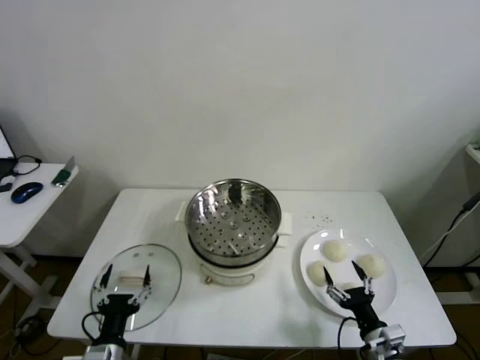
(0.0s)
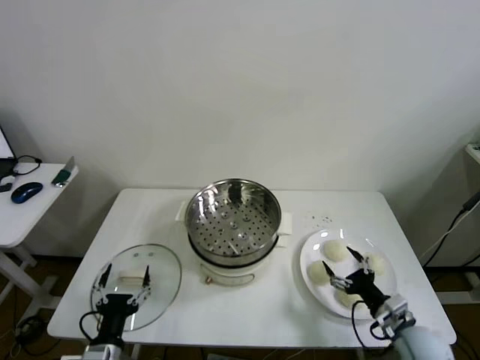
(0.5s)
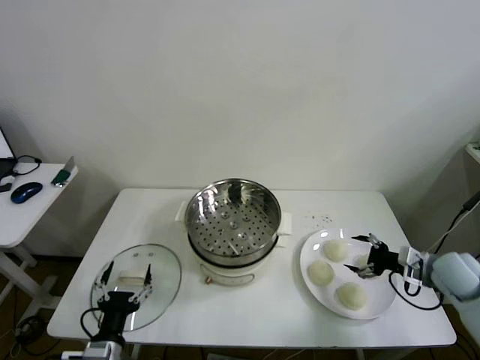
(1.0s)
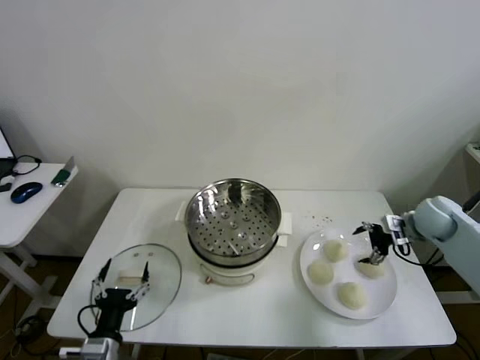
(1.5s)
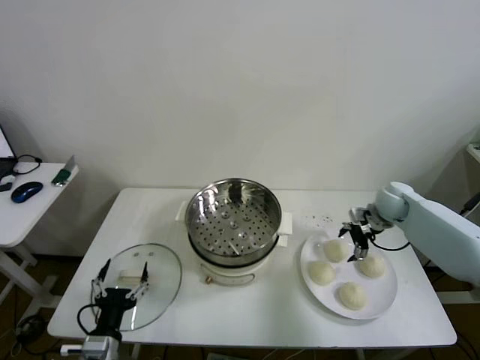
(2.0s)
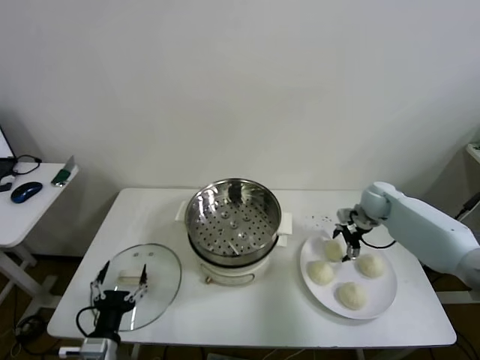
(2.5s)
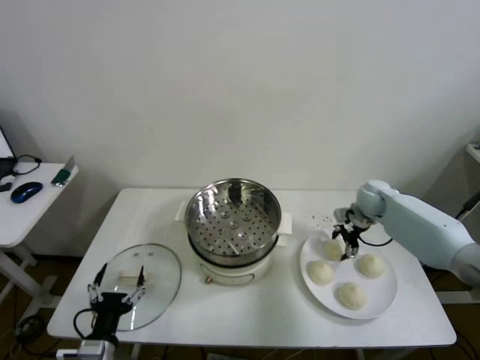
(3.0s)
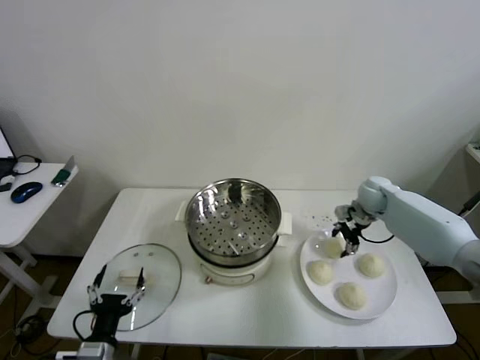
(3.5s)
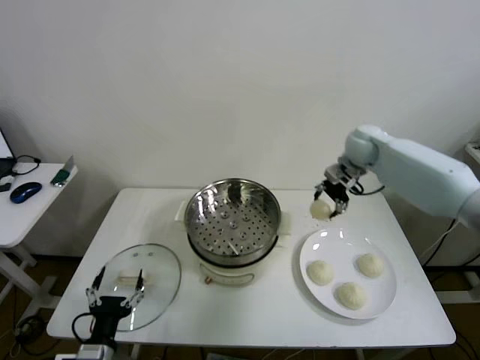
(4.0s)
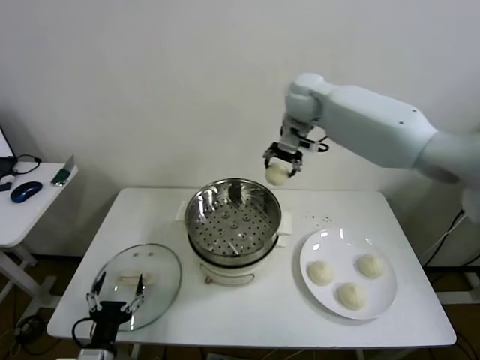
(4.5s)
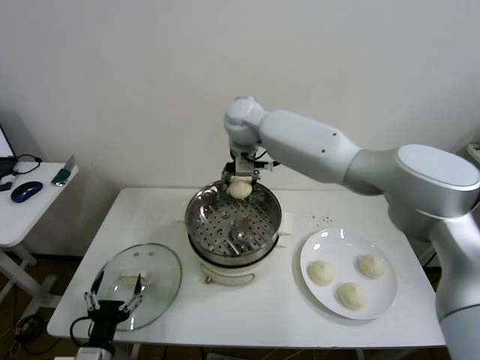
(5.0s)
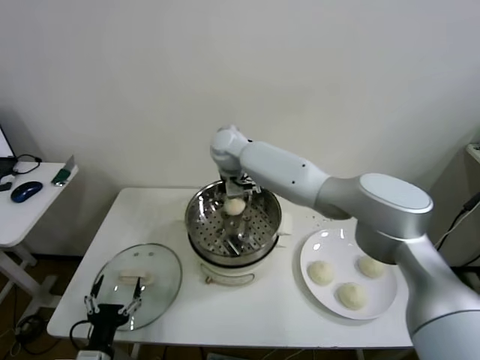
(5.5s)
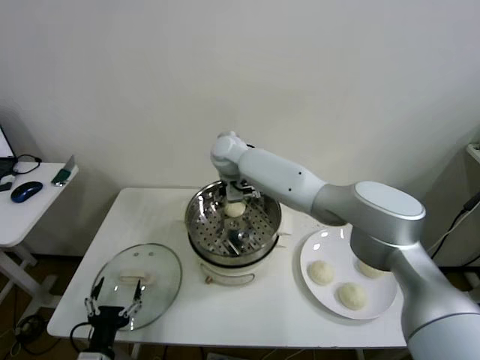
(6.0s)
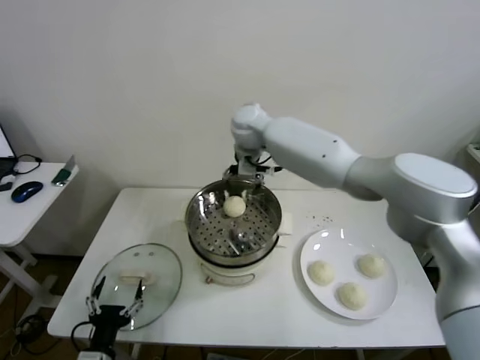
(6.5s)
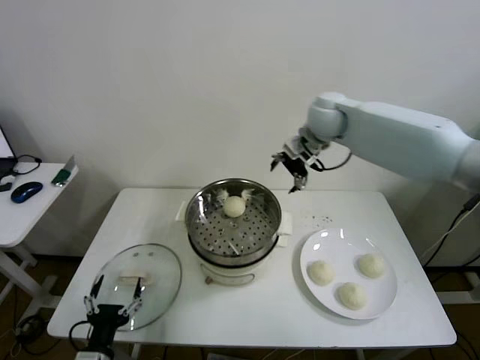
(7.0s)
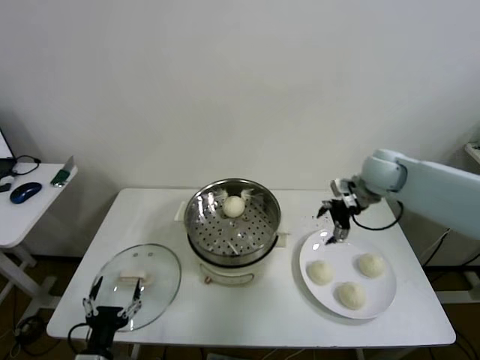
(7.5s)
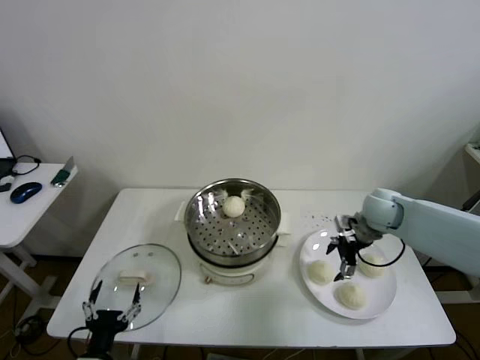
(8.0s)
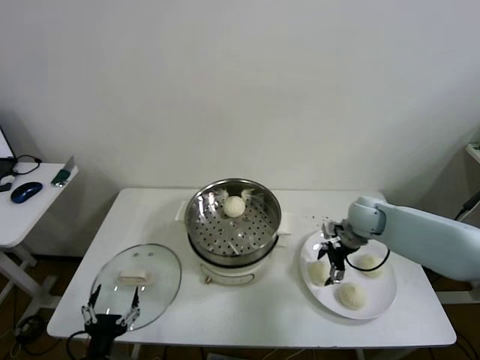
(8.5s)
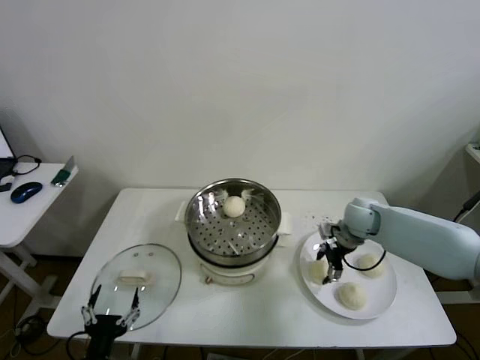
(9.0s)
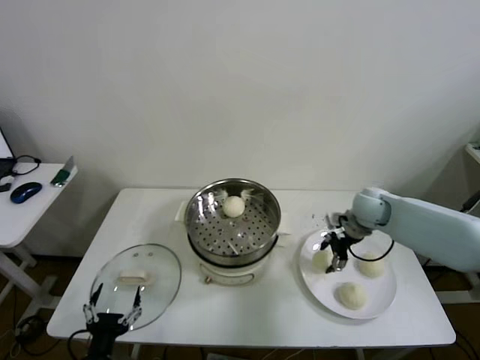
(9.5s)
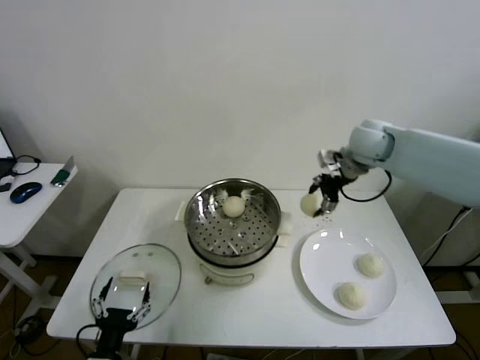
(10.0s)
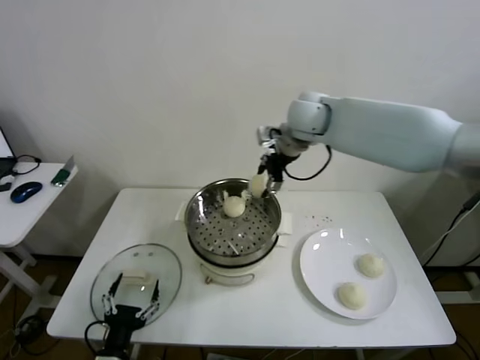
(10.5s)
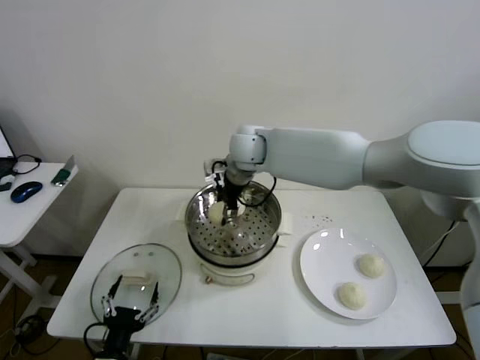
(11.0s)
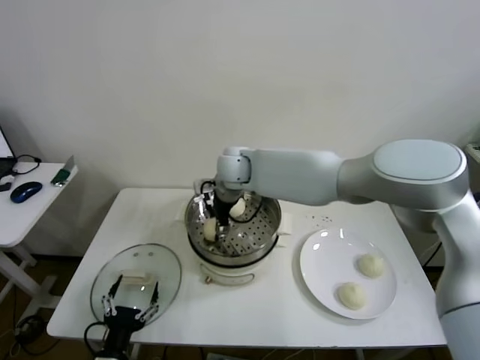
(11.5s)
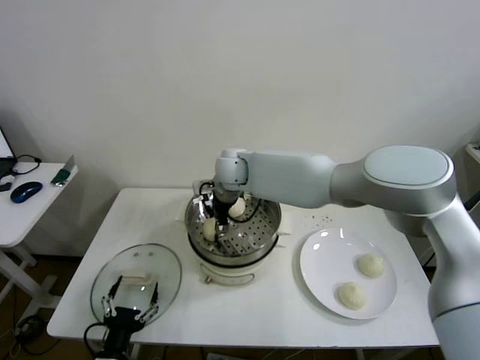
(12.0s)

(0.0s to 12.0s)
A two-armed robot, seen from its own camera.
Step, 0.0s - 3.0s: Grasp the baozi in the plate with right gripper.
Step, 3.5s - 6.0s: Place the baozi on the steamer with right gripper.
Step, 6.5s - 9.0s: Grasp the baozi in the plate with right gripper.
2.0s - 4.0s: The right gripper goes some 20 cm upward, to the left and forward, and closes.
4.0s - 6.0s: The right gripper goes some 30 cm to the left, and opens its fingers.
6.0s - 8.0s: The right gripper travels to the right by about 35 cm.
8.0s - 10.0s: The right gripper is displaced upward by some 20 cm, and closes up.
10.0s - 12.0s: The right gripper goes approximately 30 cm to the left.

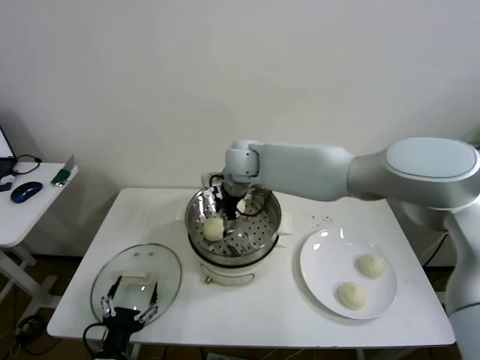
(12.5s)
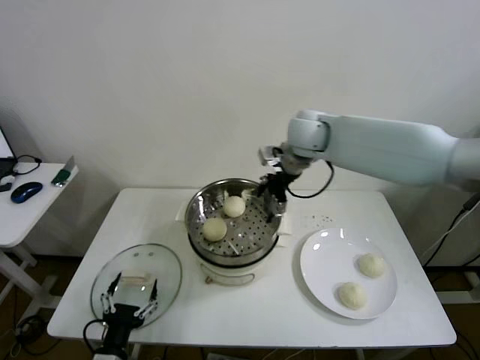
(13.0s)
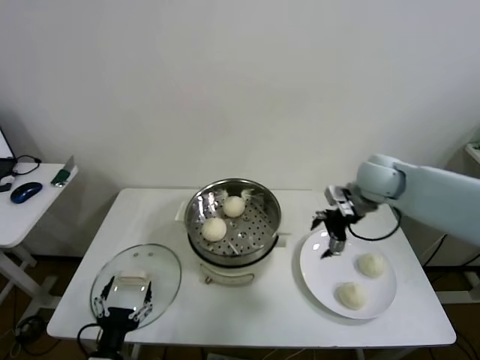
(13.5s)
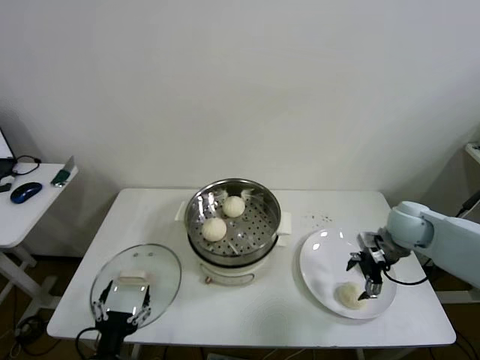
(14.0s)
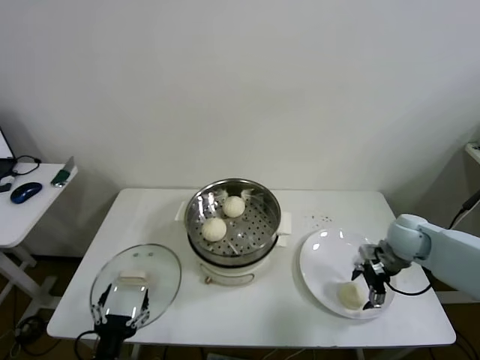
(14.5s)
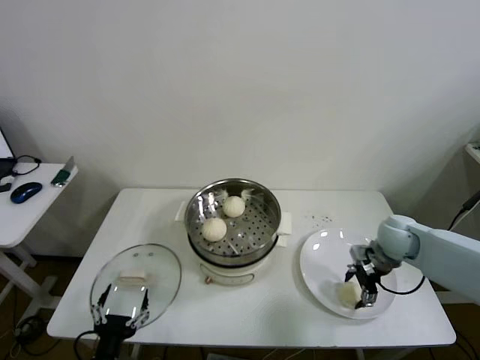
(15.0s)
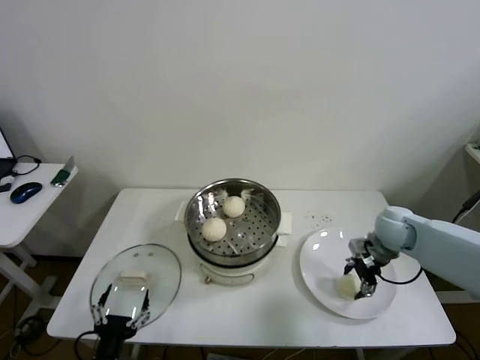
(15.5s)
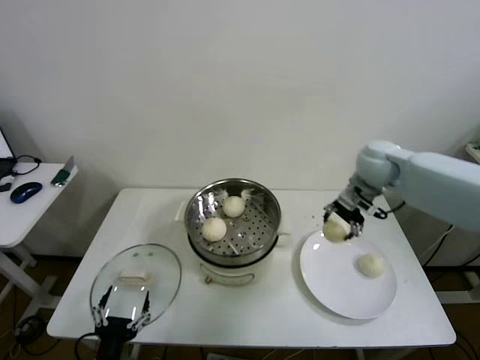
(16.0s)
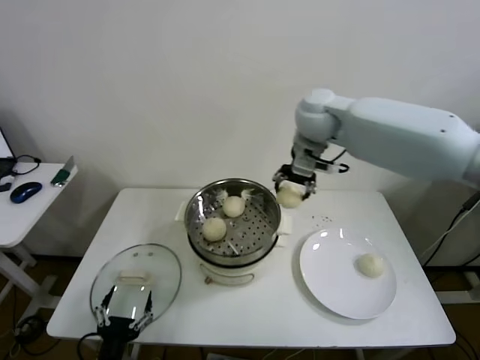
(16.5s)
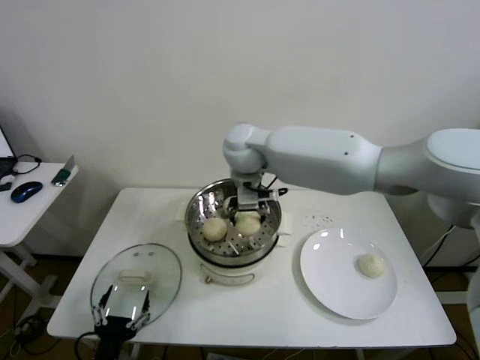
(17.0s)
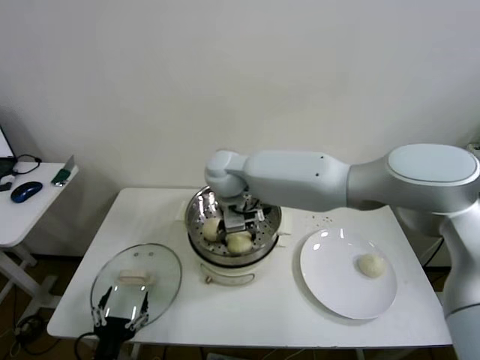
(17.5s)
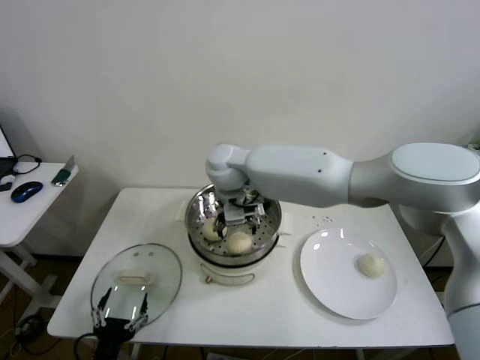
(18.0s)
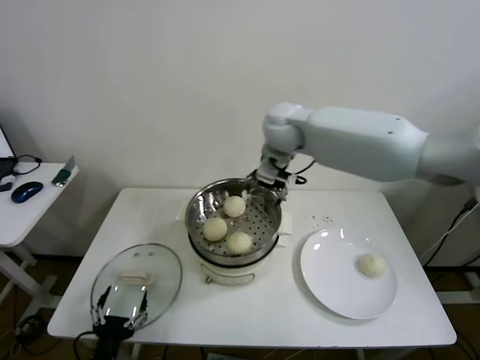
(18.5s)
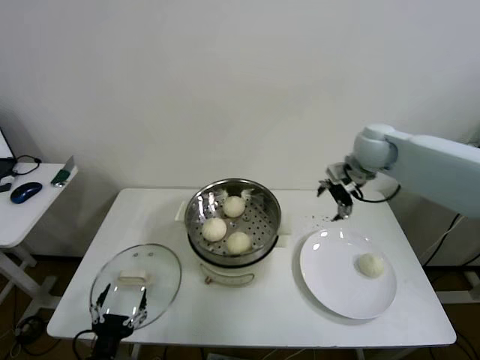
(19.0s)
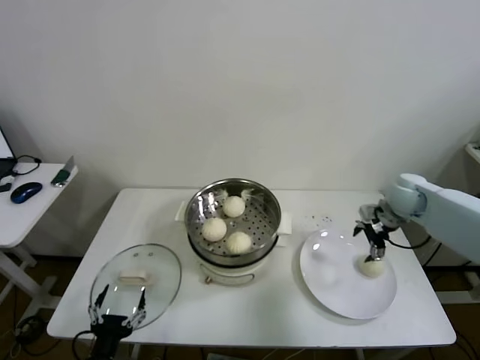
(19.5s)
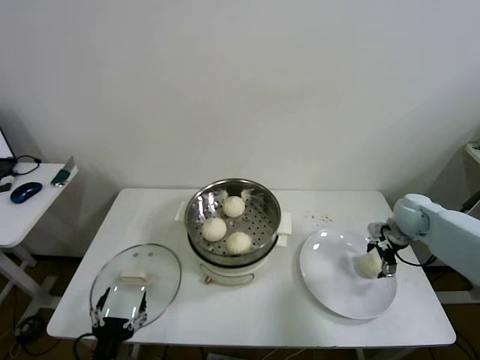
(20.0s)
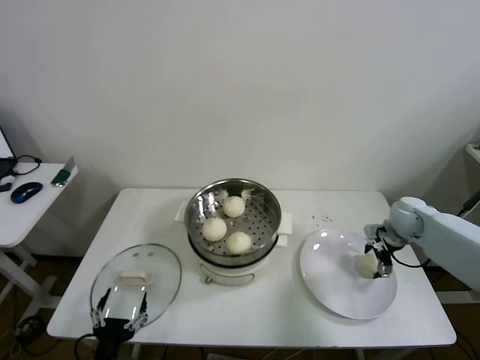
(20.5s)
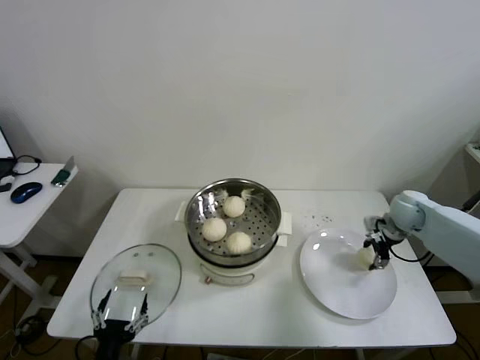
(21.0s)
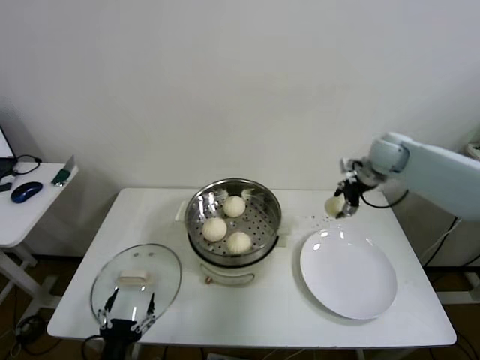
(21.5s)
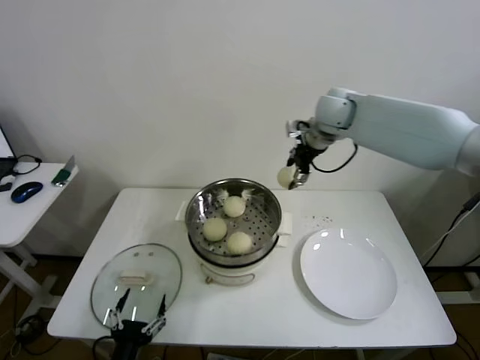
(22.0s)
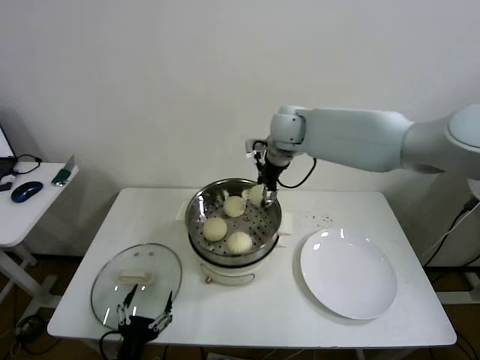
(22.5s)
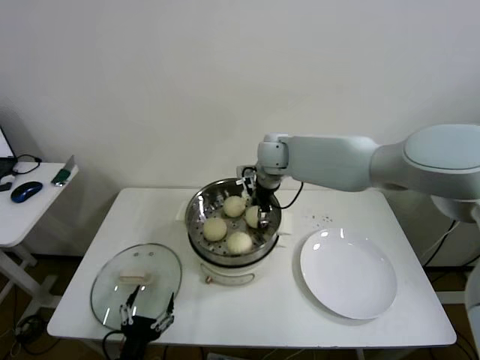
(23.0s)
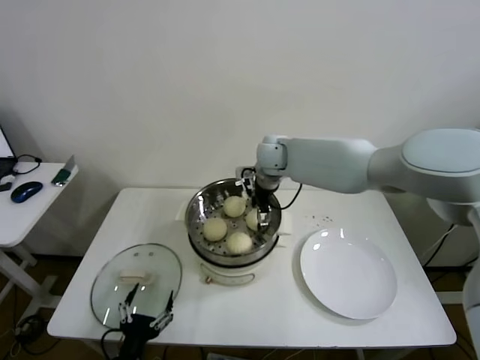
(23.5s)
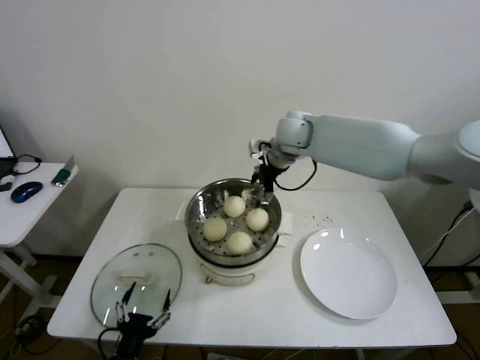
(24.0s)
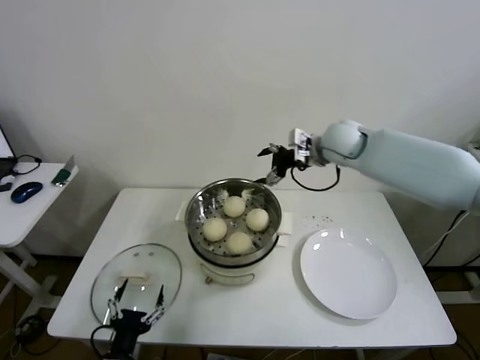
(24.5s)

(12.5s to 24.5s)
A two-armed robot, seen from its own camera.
Step, 12.5s - 15.0s: Grasp the baozi in the plate with right gripper.
Step, 15.5s - 17.5s: Place the baozi on the steamer with right gripper.
Step, 18.0s - 20.5s: Grasp the baozi in the plate with right gripper.
Step, 21.0s - 23.5s: Place the baozi on the steamer with right gripper.
12.5s - 14.5s: The right gripper shifts roughly 35 cm to the right.
14.5s - 16.5s: The right gripper shifts roughly 35 cm upward, to the left and forward, and closes up.
16.5s - 18.5s: The right gripper moves some 20 cm to the left and comes back, and opens up.
18.5s - 20.5s: The right gripper shifts some 40 cm to the right and downward.
20.5s - 22.5s: The right gripper travels to the left and upward by roughly 40 cm, and closes up.
22.5s - 24.5s: The right gripper shifts roughly 10 cm to the right, and opens up.

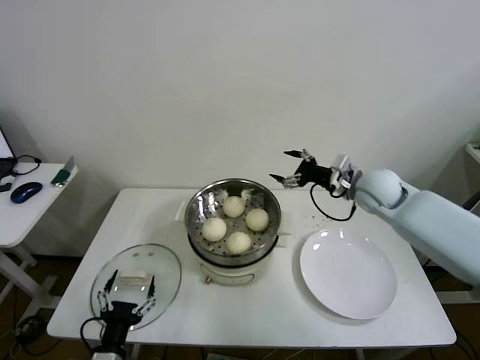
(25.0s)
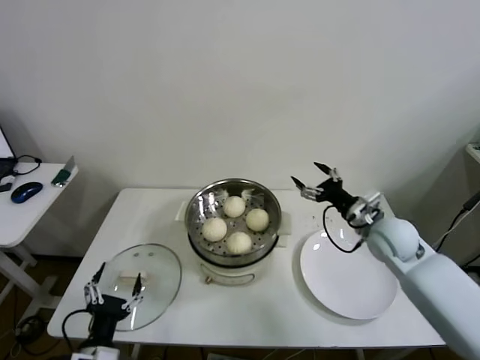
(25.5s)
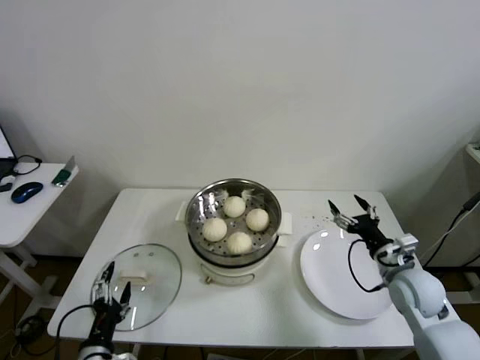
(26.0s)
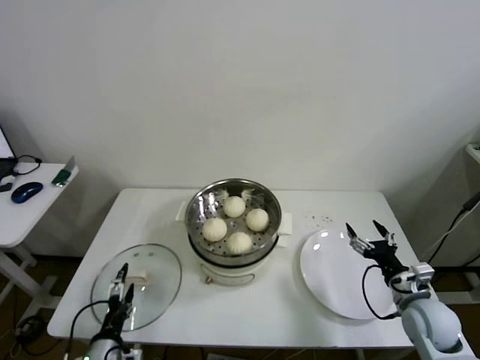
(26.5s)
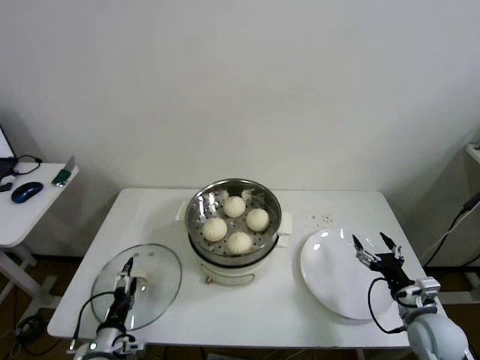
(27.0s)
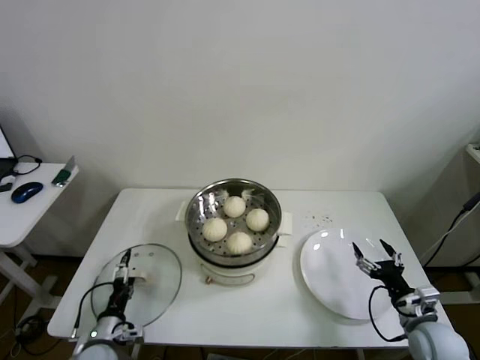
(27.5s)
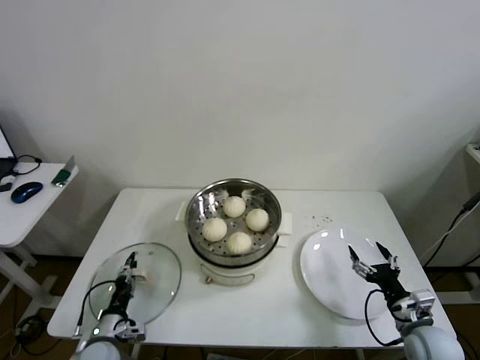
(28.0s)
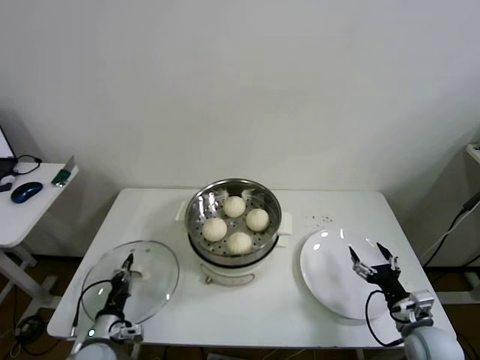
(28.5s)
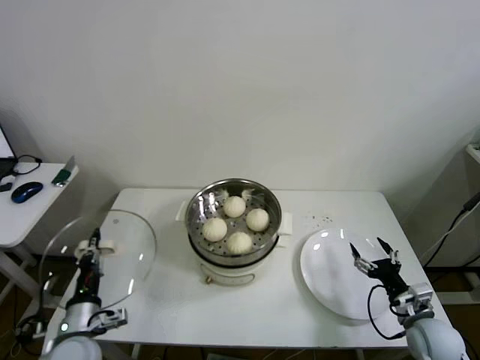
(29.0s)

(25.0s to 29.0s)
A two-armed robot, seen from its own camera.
Step, 25.0s - 28.0s: Grasp the pot lid with left gripper.
25.0s - 27.0s: The left gripper moves downward, forward and to the left, approximately 10 cm. Meanwhile the right gripper goes about 30 cm backward and downward.
27.0s - 29.0s: The left gripper heads upward, covering about 10 cm, and closes.
